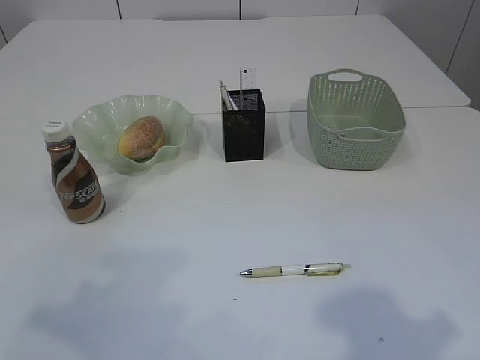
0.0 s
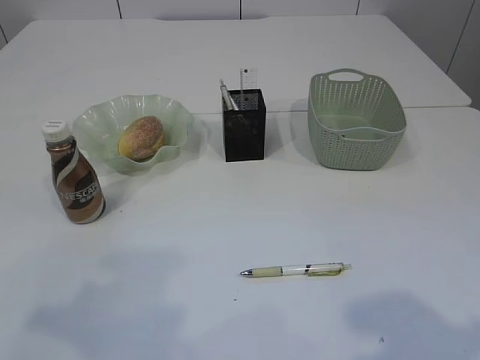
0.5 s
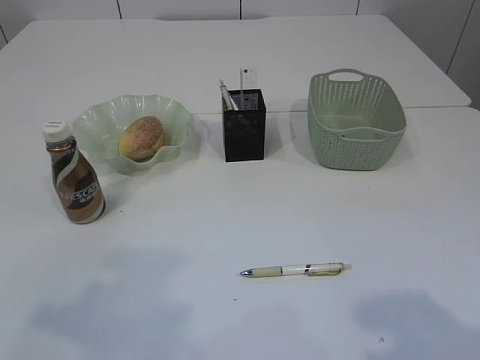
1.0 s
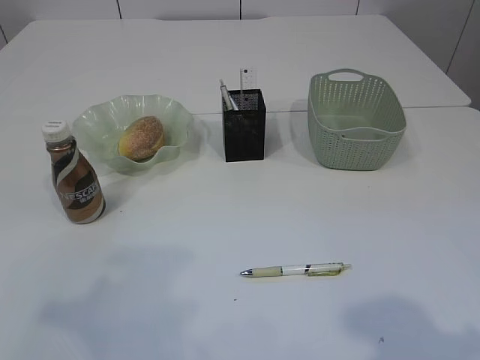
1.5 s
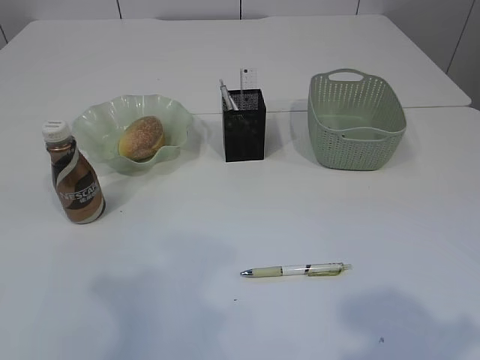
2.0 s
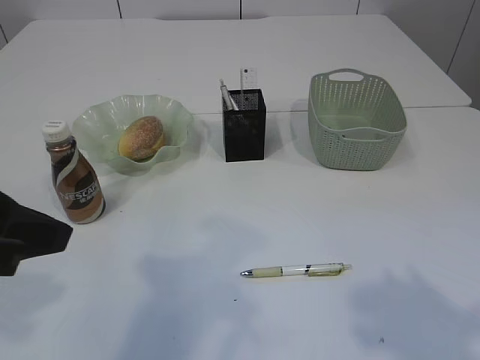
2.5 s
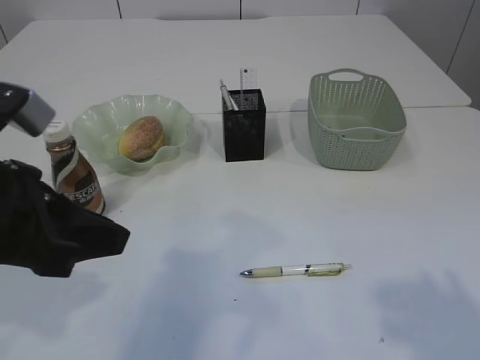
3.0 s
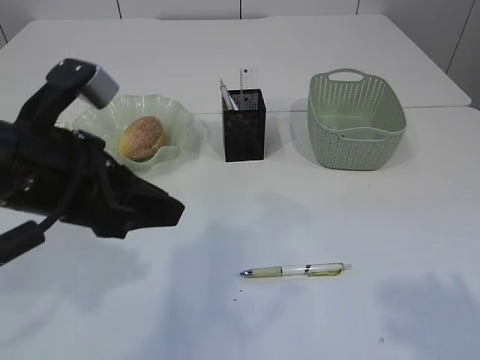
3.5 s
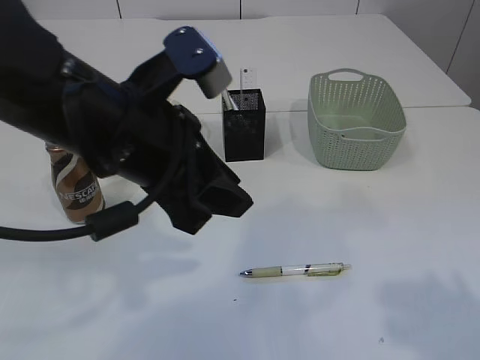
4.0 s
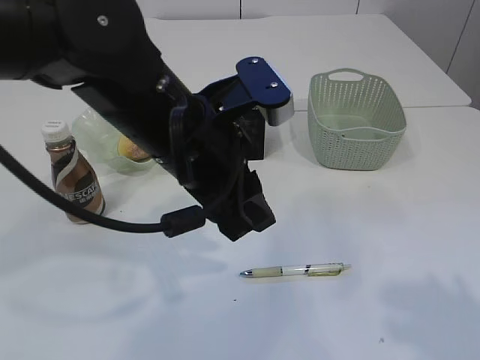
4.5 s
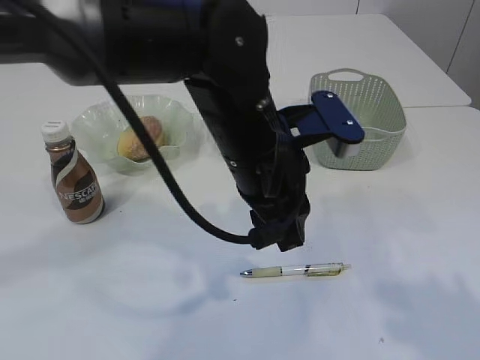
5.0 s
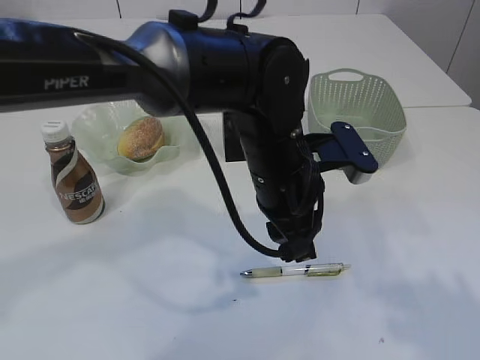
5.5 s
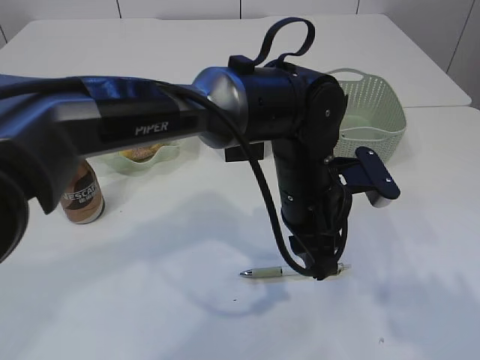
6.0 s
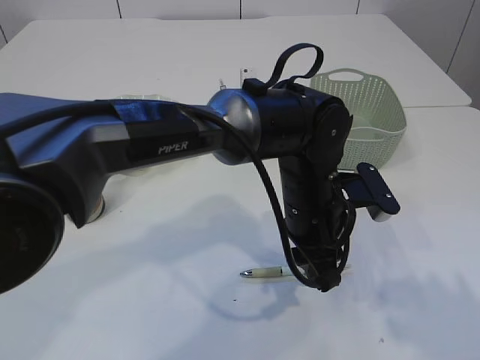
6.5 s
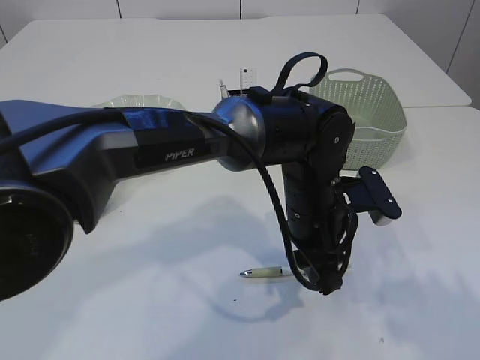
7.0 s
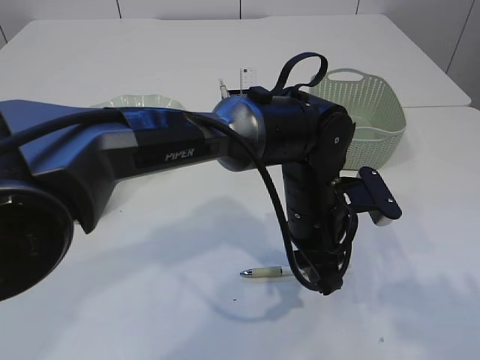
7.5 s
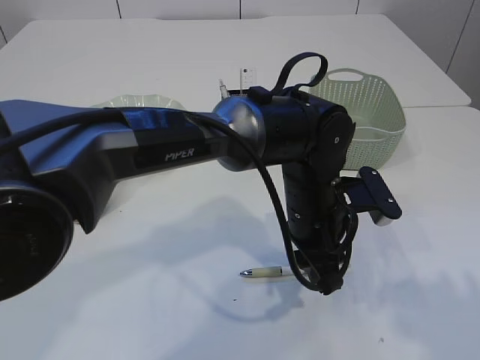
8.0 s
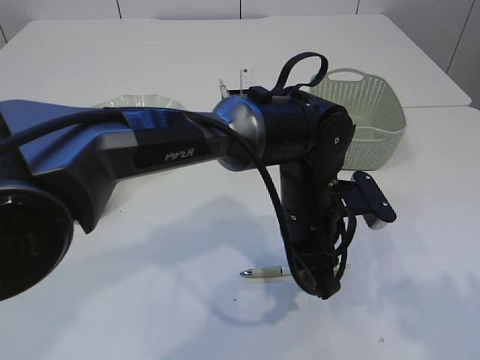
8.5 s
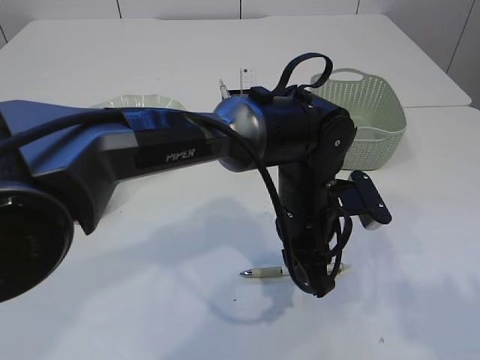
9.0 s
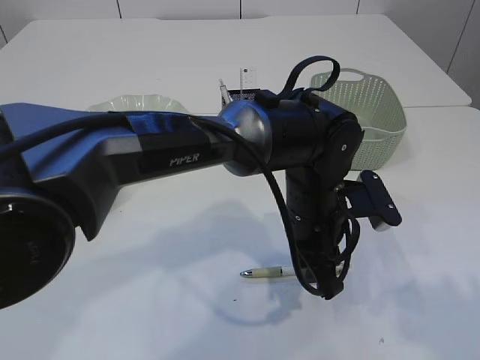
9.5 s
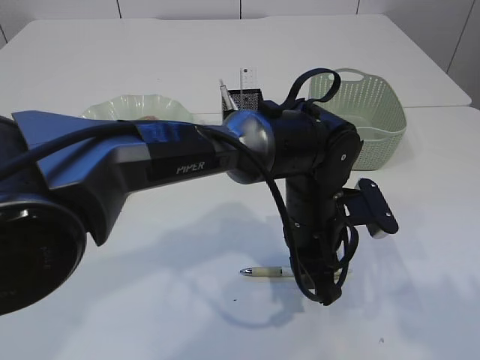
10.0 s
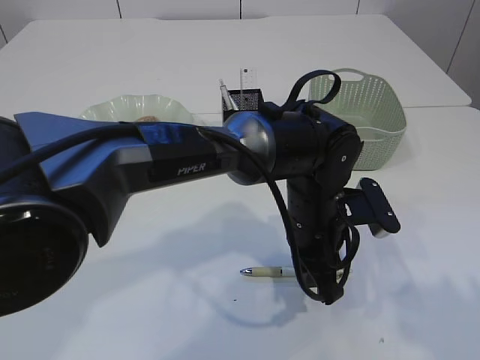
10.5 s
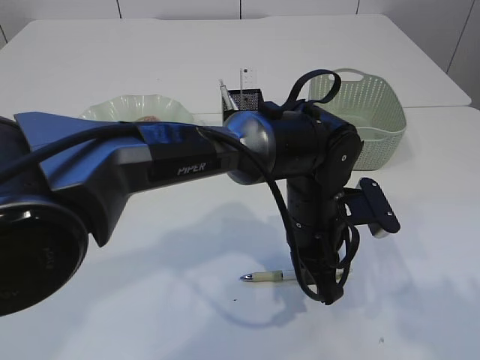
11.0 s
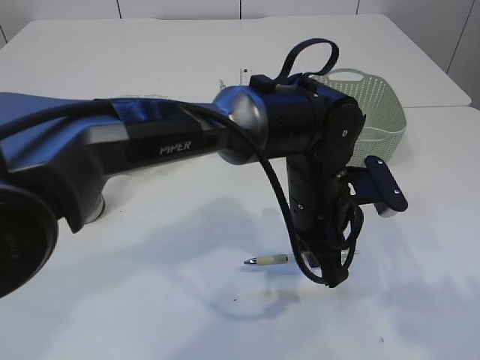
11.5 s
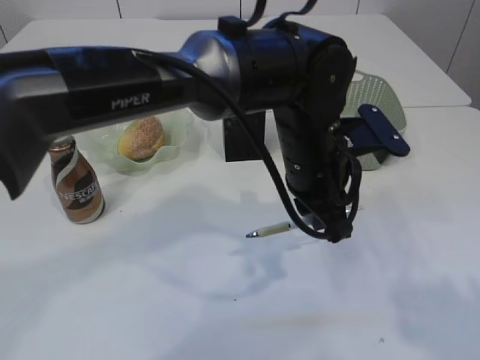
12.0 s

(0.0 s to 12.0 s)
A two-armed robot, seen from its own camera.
2.0 s - 4.0 s: The left gripper shifts roughly 20 cm to the right and forward.
4.0 s - 6.0 s: The left gripper shifts roughly 20 cm to the right, downward and forward.
8.0 s - 10.0 s: The grippers make only small movements.
10.0 s - 12.0 s: The left gripper shifts roughly 10 cm upward, and closes its fingers.

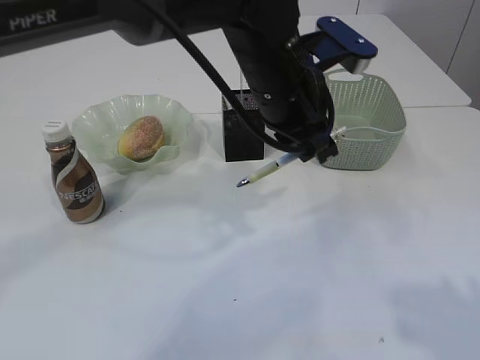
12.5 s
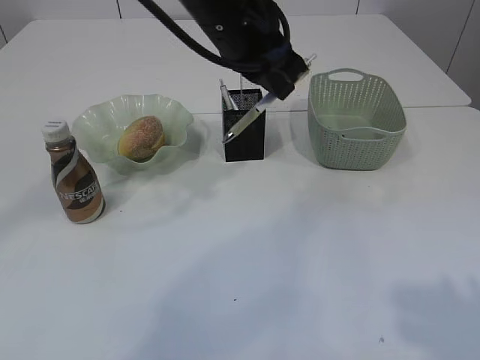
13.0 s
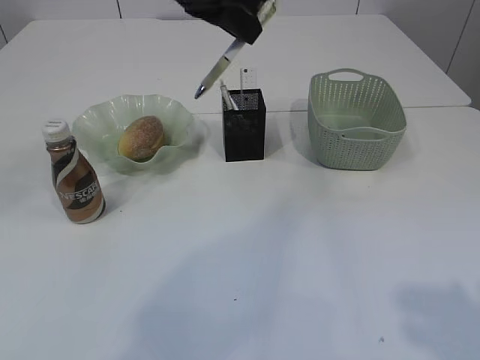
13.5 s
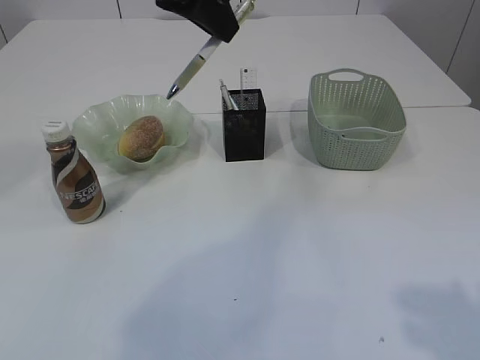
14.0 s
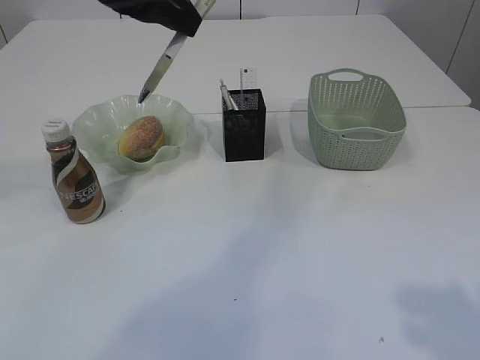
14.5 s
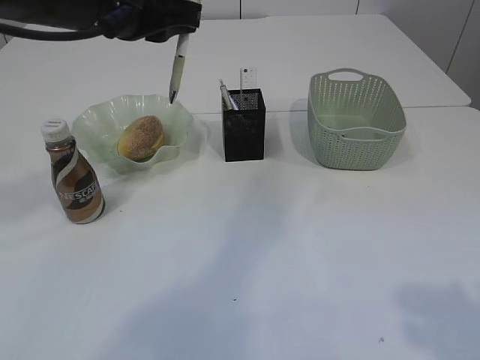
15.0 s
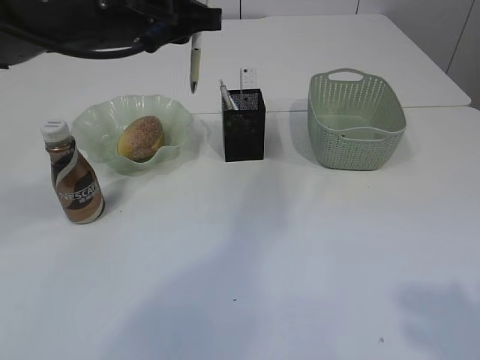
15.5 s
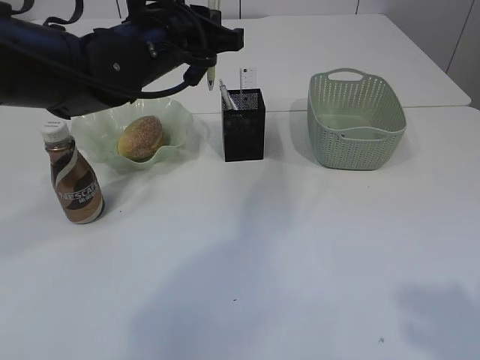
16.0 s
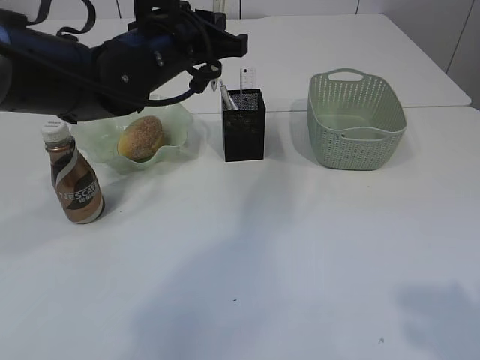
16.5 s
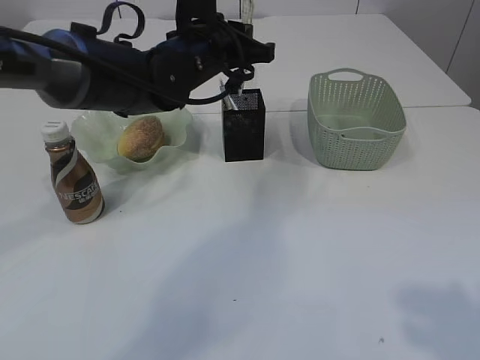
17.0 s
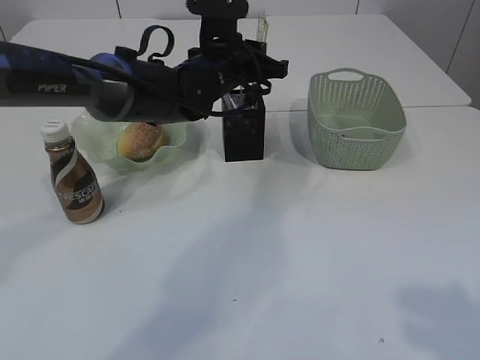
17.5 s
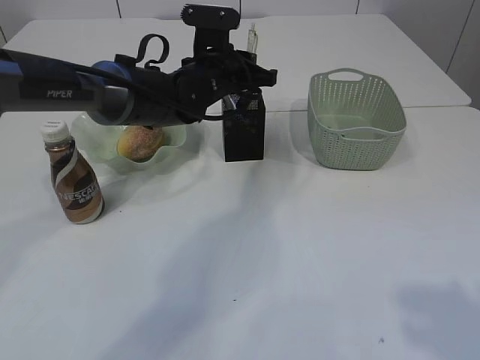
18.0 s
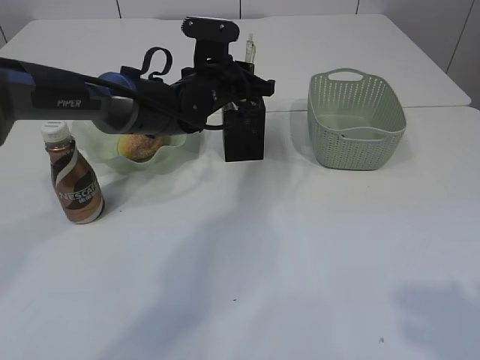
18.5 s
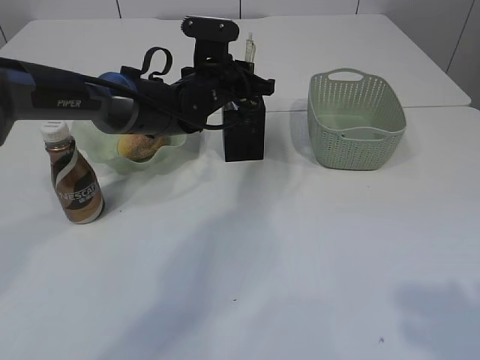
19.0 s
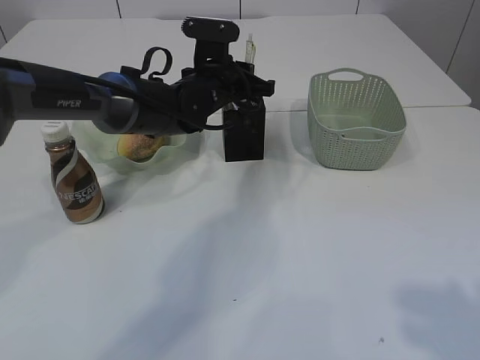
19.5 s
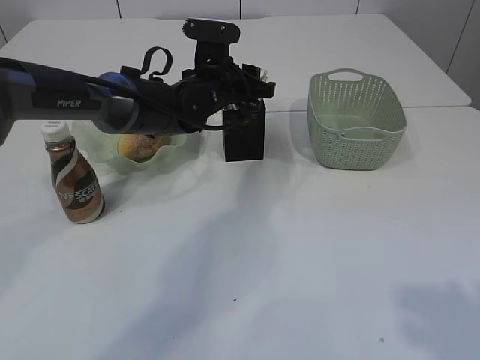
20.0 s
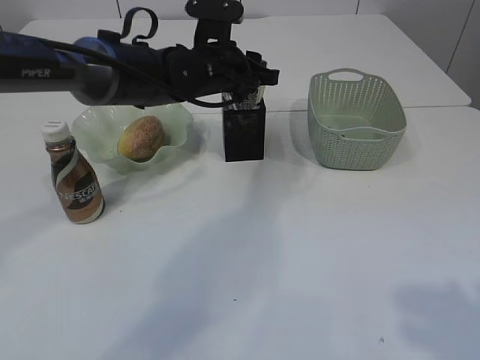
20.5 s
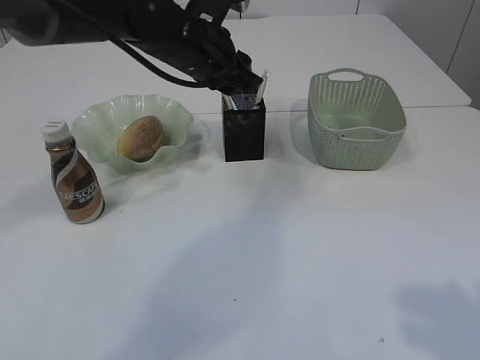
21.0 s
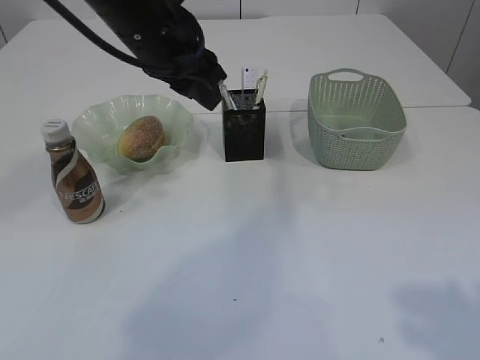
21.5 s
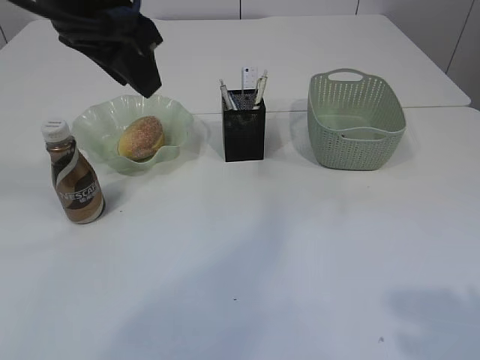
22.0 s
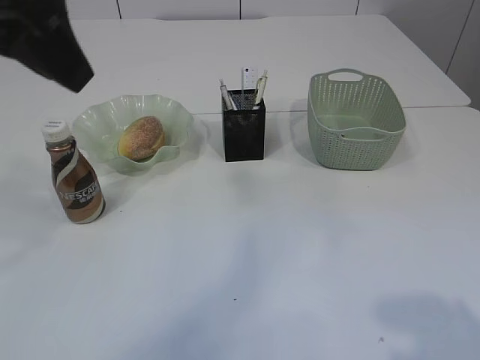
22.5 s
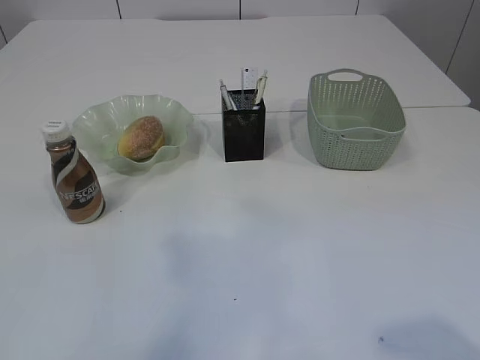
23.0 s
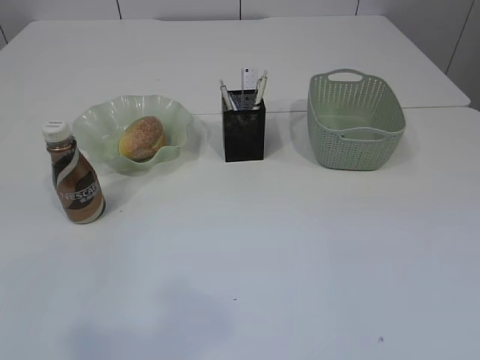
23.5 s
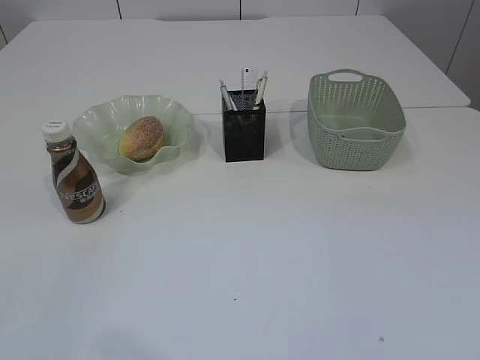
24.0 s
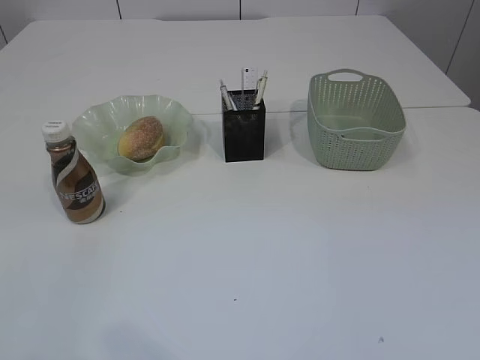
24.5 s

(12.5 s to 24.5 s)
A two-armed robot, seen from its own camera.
Step, 12.5 s - 21.5 s: Place the pen into the pen holder.
12.5 s - 14.5 s: The left gripper goes about 20 cm to the left and upward.
14.5 s - 16.5 s: The left gripper travels downward and forward by roughly 15 cm.
16.5 s - 18.5 s: The left gripper heads downward and forward, covering approximately 10 cm.
18.5 s - 20.5 s: The left gripper opens up.
20.5 s - 22.5 s: The left gripper is displaced backward, upward and to the left by roughly 30 cm.
22.5 s - 24.5 s: The left gripper shifts approximately 30 cm backward, to the left and downward, while the right gripper travels backward by some 5 cm.

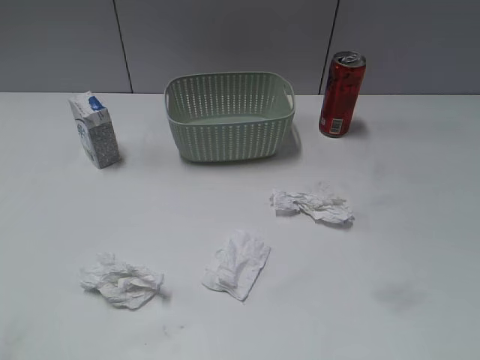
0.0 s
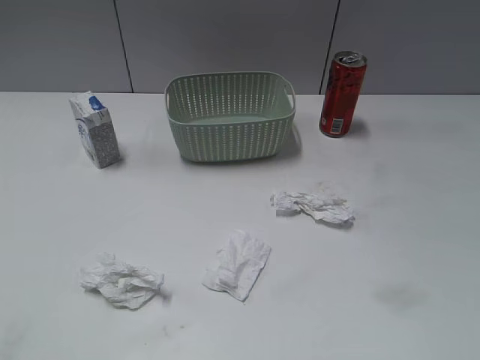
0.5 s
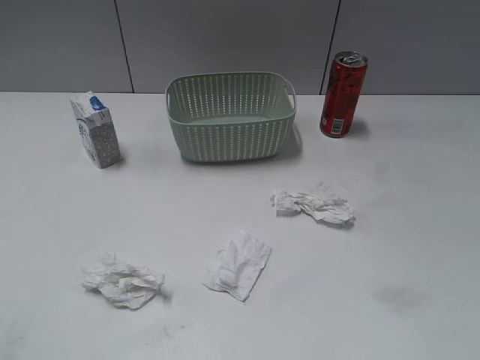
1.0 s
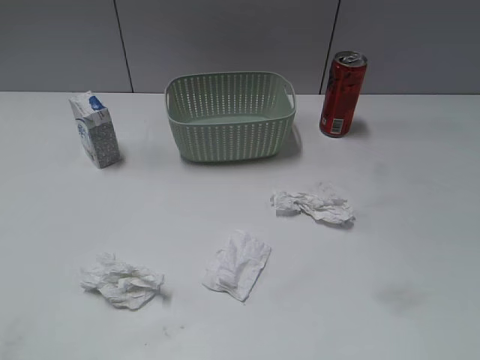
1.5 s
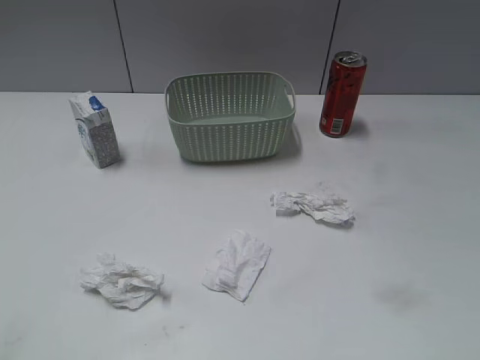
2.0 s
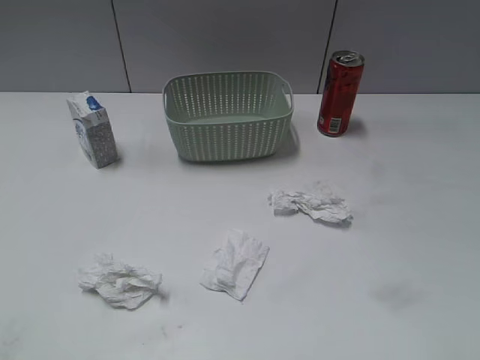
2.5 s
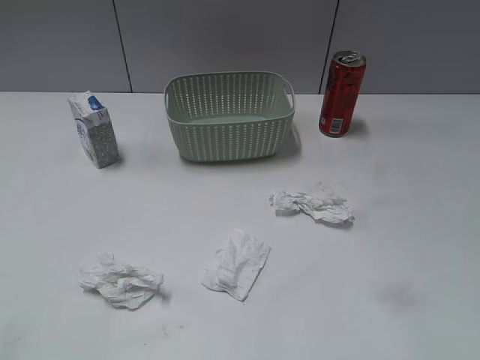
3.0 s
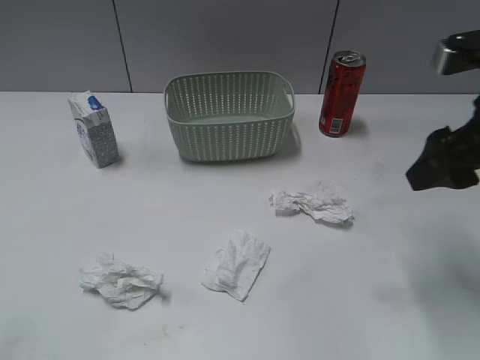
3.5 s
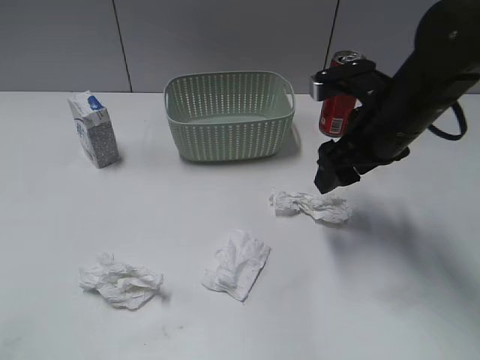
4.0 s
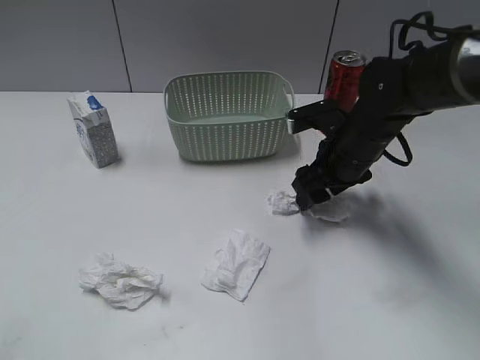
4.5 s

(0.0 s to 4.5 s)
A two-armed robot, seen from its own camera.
2.0 s - 4.5 s: The right gripper travels forward, to the left and downward by about 40 cm.
